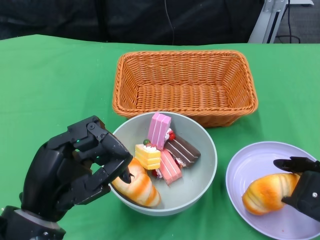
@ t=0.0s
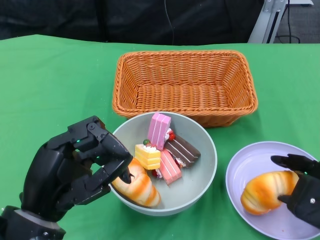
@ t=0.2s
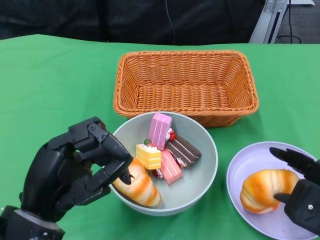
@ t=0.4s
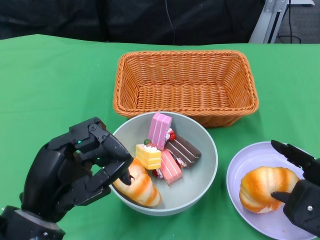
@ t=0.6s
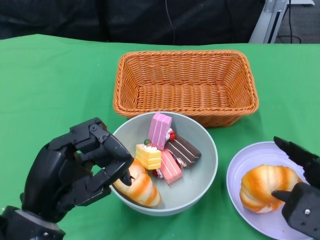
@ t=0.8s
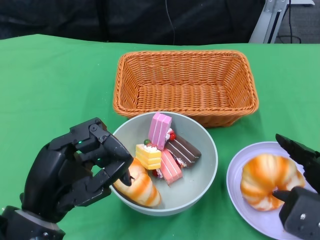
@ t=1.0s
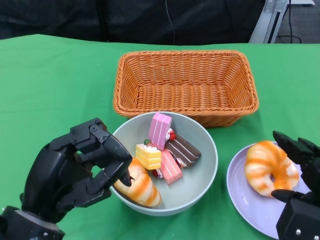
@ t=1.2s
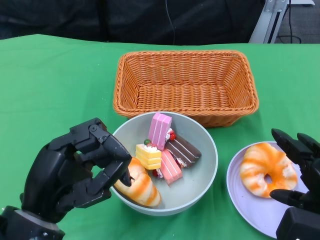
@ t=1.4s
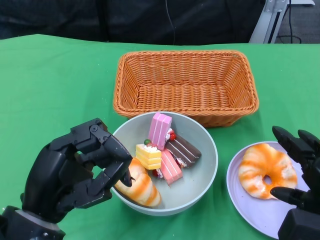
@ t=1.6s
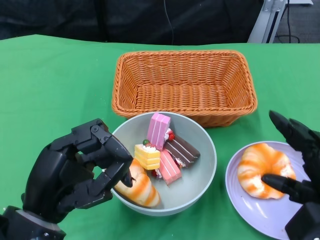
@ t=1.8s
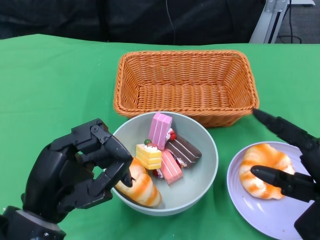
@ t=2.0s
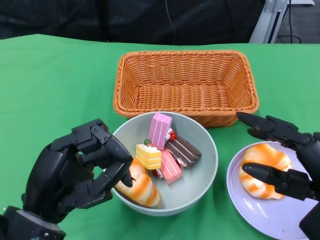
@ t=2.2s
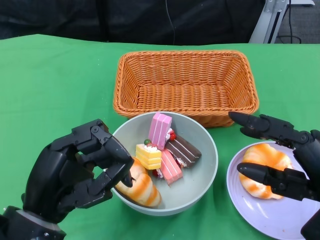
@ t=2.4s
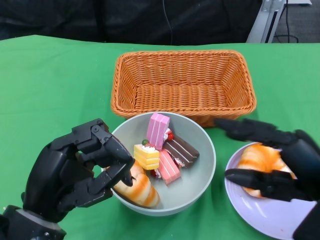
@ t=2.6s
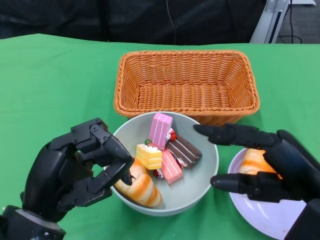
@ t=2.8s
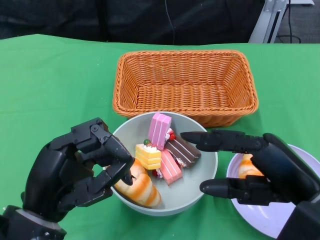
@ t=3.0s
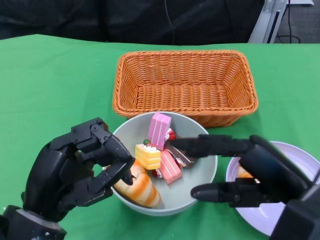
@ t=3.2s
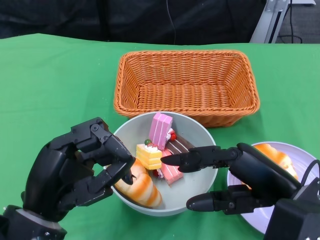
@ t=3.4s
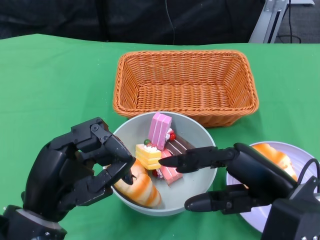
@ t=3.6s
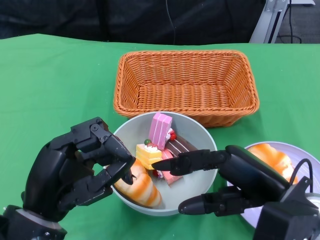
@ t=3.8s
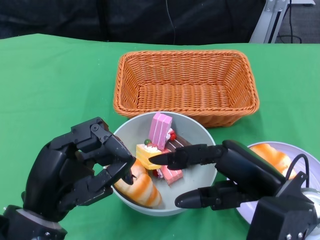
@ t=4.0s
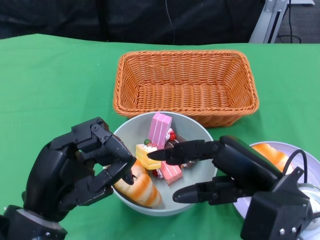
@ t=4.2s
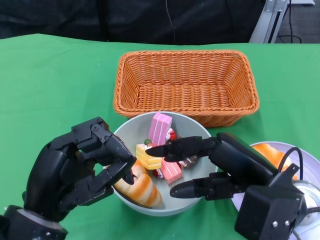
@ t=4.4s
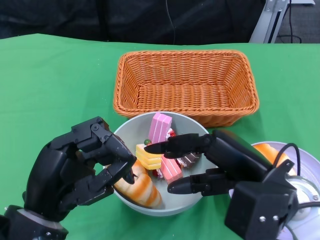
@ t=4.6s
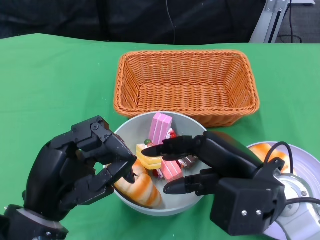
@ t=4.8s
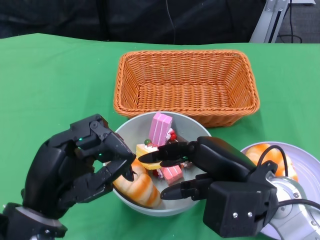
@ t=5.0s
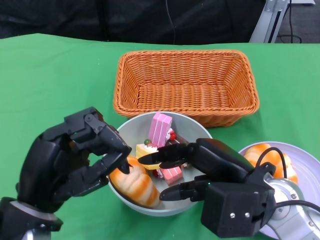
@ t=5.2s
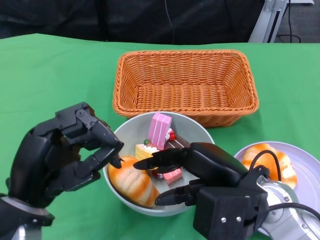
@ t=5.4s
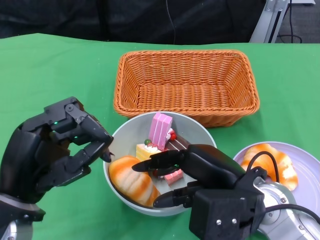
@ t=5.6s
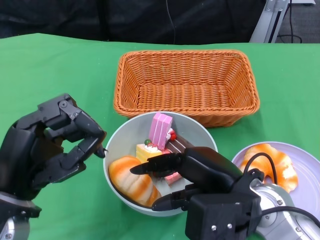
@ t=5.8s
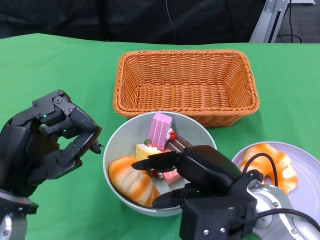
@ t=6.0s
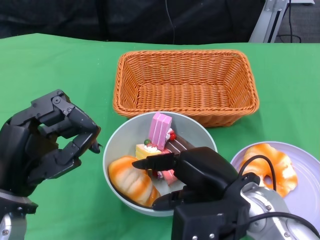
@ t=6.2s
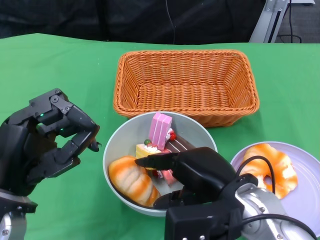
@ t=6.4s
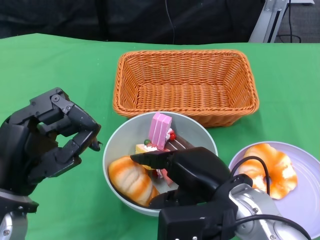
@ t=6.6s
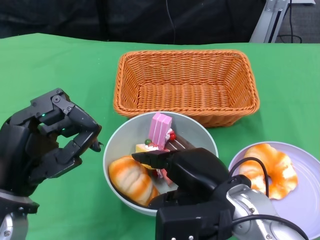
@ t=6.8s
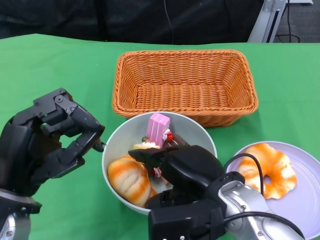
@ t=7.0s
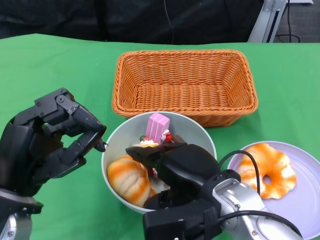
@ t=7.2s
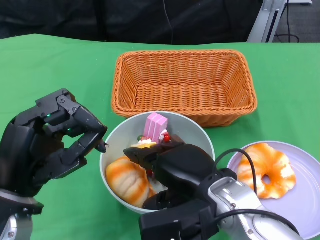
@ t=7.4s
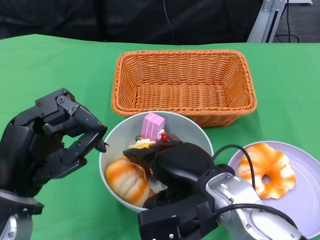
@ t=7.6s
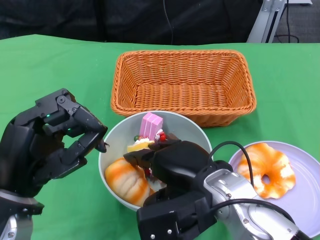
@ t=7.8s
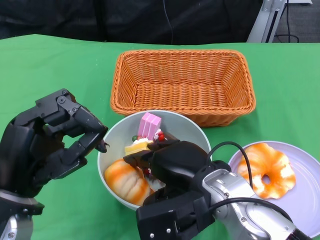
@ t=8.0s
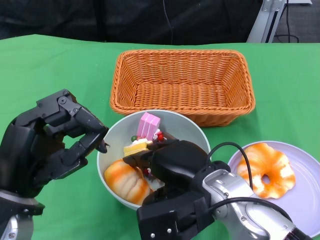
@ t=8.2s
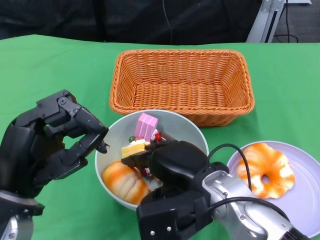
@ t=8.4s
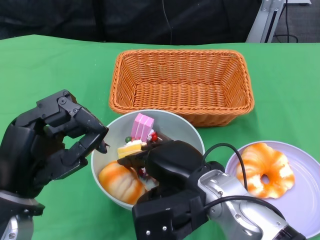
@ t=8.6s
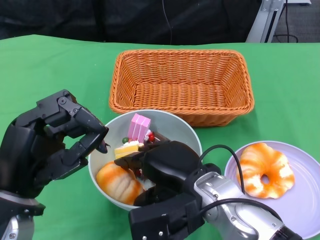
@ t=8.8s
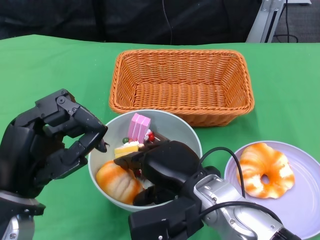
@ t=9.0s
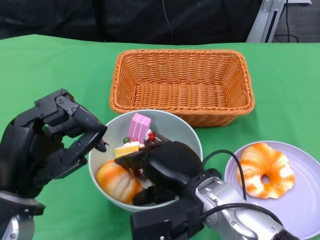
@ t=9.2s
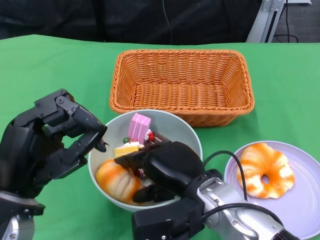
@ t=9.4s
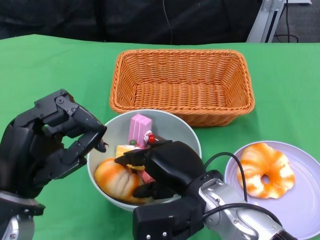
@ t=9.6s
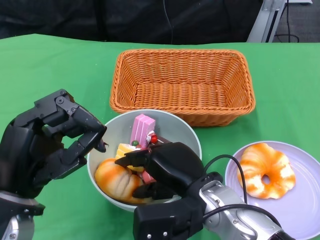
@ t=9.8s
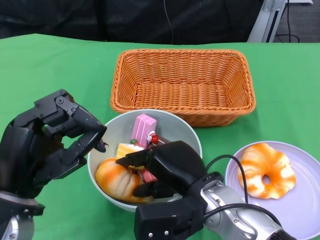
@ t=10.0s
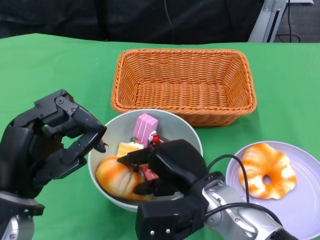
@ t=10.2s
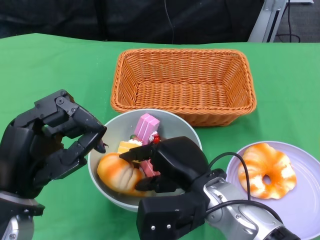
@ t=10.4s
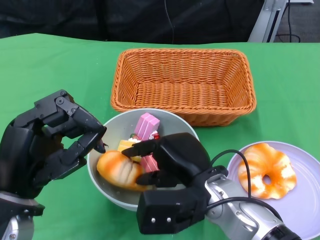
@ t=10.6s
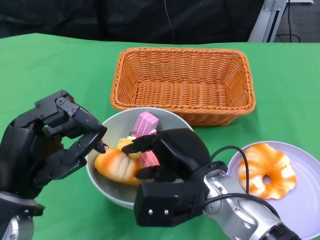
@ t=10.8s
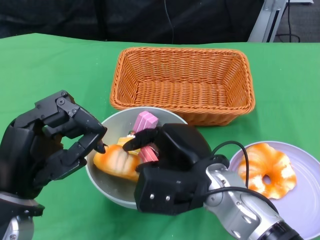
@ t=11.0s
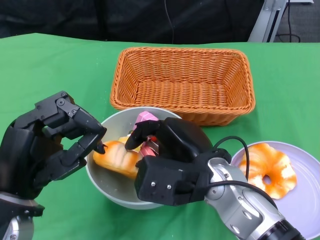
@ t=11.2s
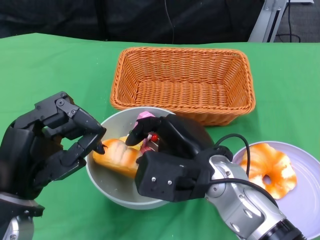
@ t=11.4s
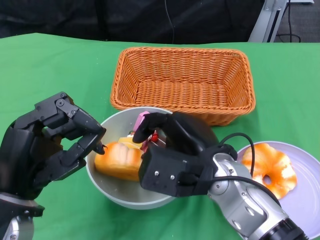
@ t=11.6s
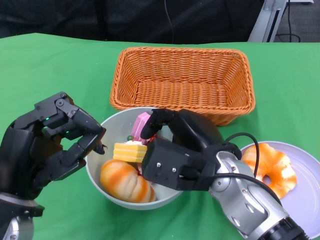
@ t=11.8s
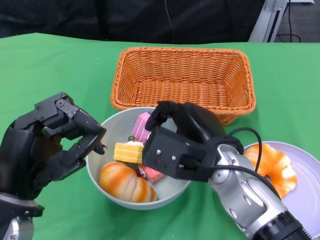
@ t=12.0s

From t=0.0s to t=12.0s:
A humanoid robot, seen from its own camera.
From t=1.6s to t=3.0s: The right hand shifts some 10 cm to the left and upward.
From t=3.0s to t=4.4s: The right hand changes place by some 5 cm.
From t=7.6s to t=9.0s: The hands move only a little.
From t=9.0s to t=10.4s: There are only small adjustments of the hands.
From t=10.4s to t=12.0s: The right hand moves about 5 cm.

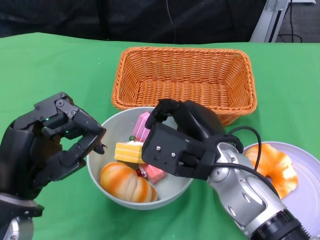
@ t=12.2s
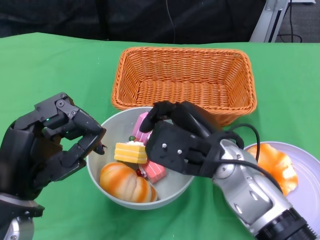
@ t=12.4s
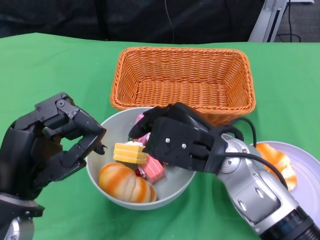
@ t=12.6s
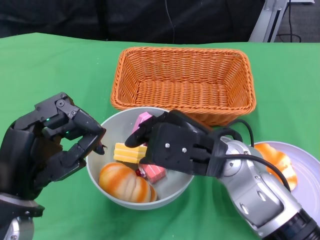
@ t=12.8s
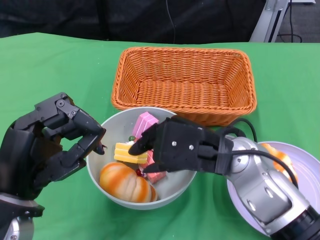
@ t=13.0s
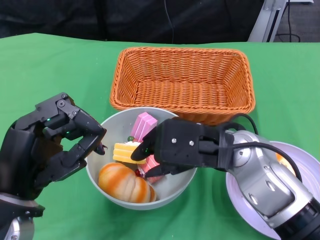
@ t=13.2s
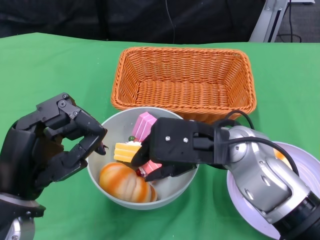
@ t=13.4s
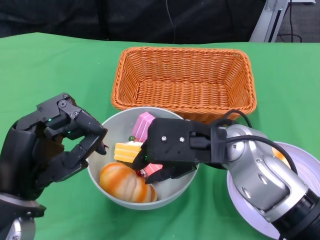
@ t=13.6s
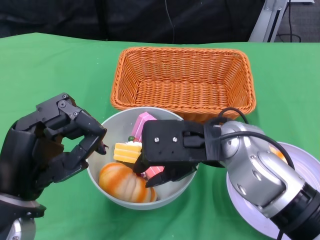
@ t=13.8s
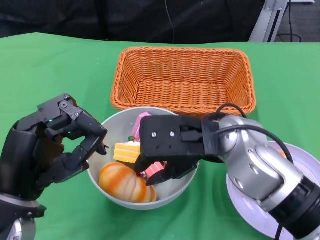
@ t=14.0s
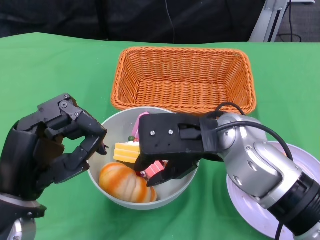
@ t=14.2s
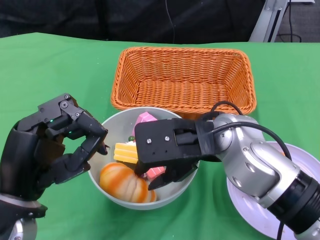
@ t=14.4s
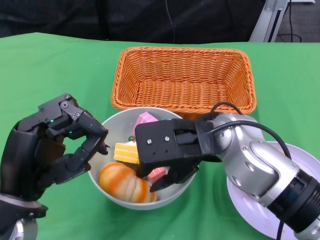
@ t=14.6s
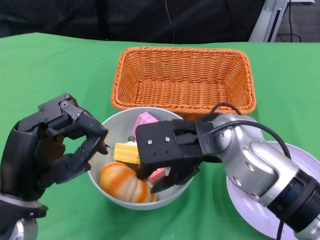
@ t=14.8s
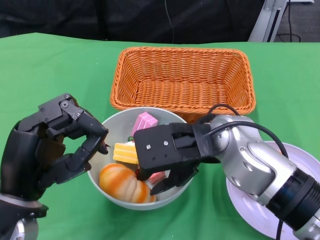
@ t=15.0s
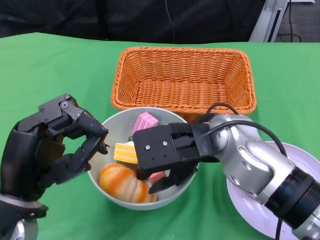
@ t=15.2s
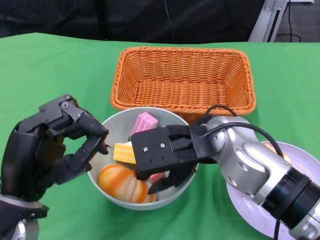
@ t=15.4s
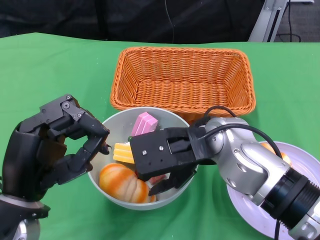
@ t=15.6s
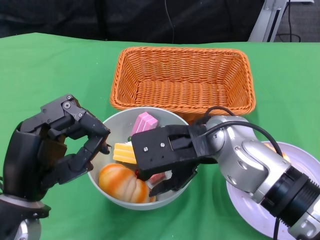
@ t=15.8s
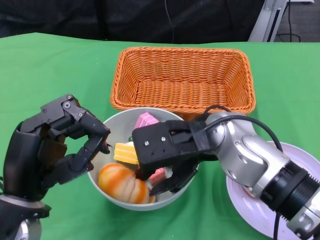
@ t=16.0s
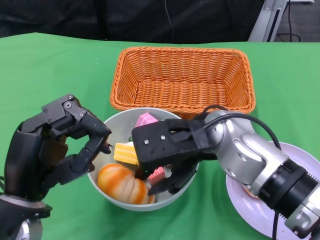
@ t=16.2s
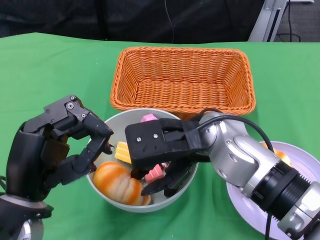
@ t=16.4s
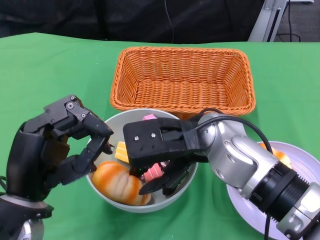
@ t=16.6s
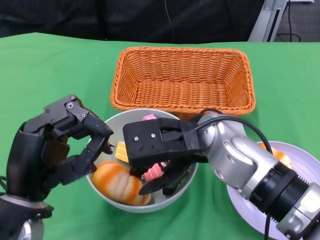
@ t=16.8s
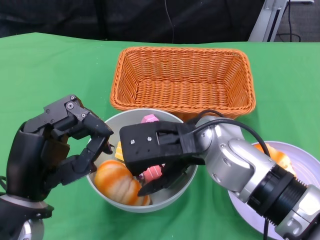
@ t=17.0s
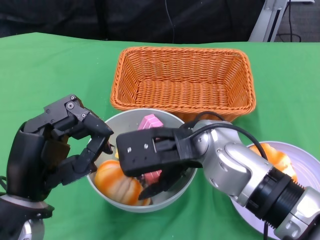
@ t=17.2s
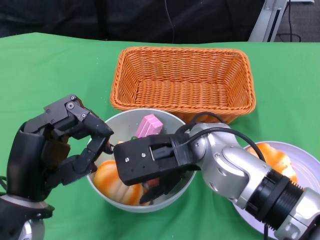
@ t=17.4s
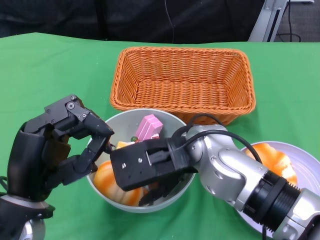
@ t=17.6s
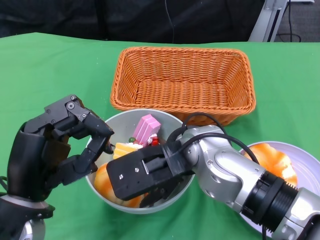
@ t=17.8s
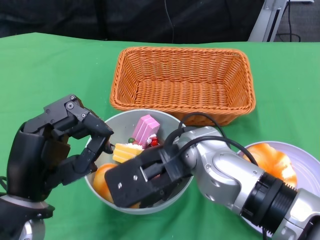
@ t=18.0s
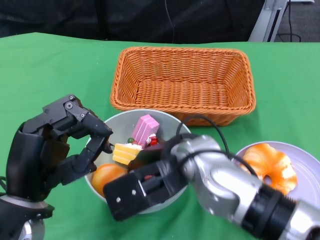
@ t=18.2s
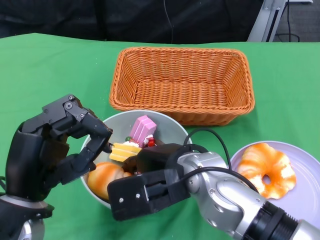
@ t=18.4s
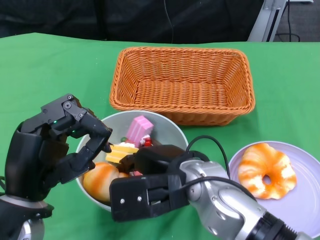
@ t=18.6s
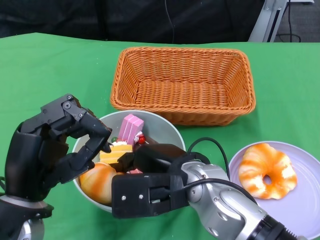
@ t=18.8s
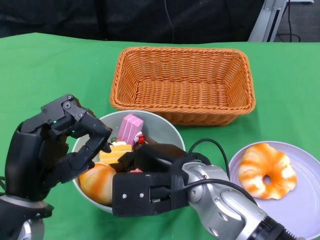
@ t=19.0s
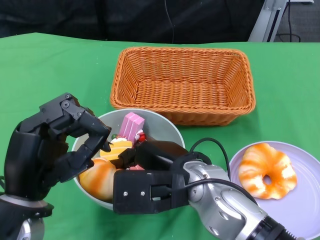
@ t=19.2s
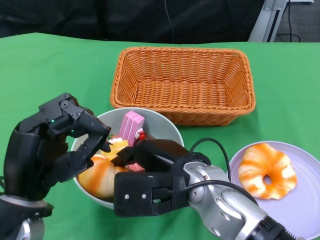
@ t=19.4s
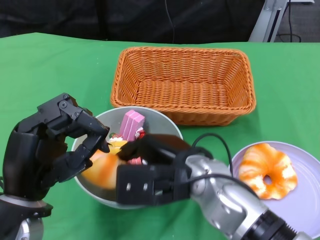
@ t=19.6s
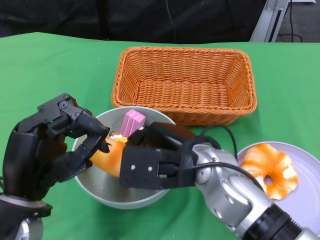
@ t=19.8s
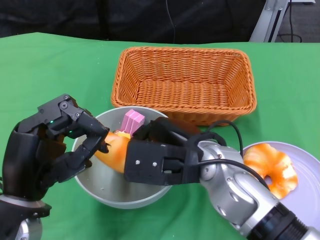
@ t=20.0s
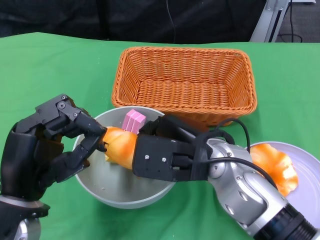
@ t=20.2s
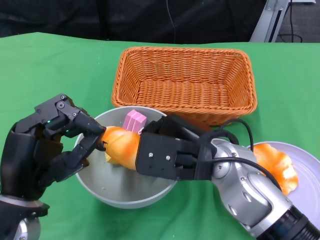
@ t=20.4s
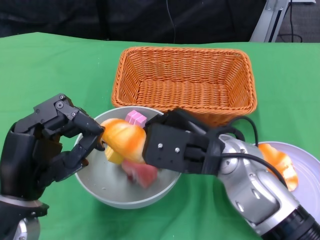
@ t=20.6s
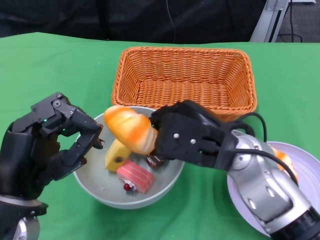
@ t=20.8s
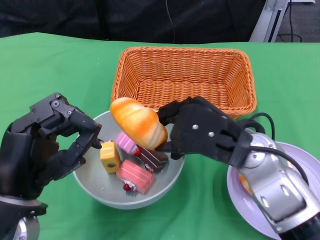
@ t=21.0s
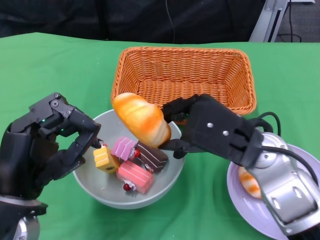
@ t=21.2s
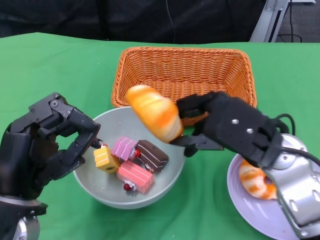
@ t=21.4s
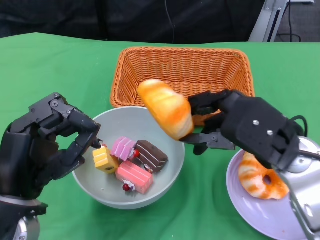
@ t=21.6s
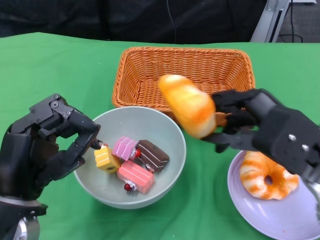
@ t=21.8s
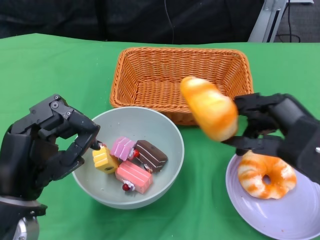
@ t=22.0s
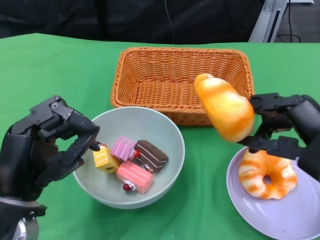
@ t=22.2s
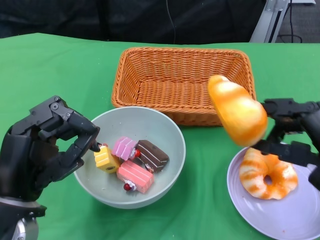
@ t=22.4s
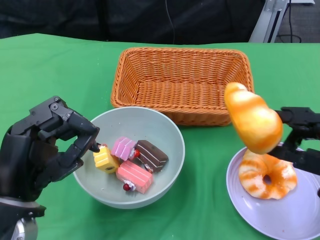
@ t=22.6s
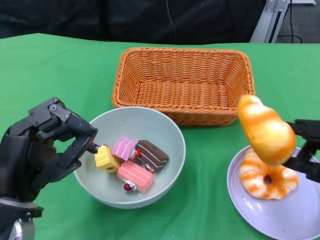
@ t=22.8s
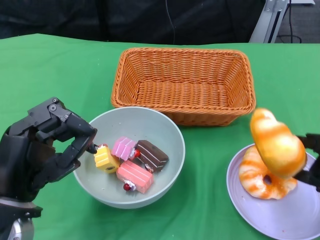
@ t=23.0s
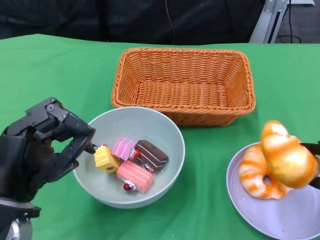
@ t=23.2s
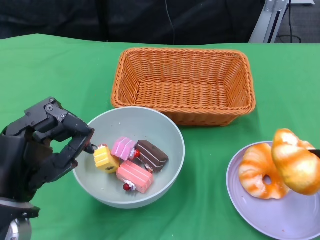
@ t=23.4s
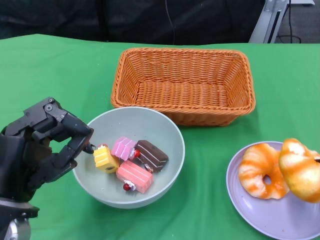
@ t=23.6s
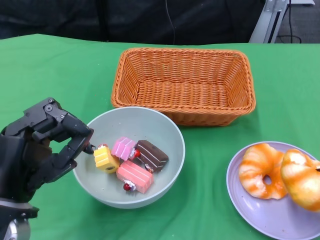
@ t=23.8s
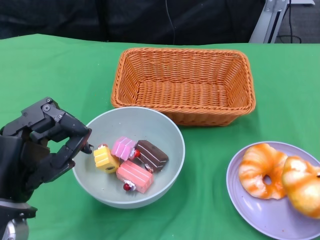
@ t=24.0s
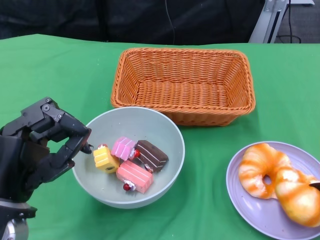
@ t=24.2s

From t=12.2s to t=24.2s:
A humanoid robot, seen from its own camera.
From t=13.8s to t=15.2s: The hands move only a little.
From t=19.8s to t=21.2s: The right hand shifts approximately 5 cm to the right.
From t=21.2s to t=22.6s: The right hand moves to the right and backward, some 15 cm.
From t=22.6s to t=24.2s: The right hand travels downward and to the right by roughly 10 cm.
